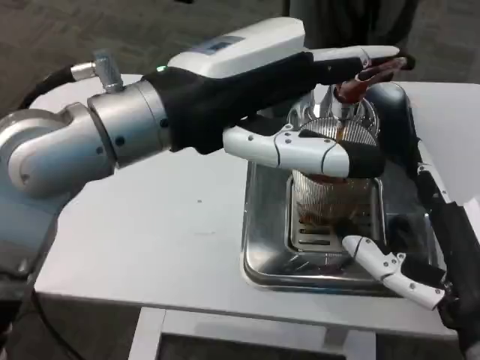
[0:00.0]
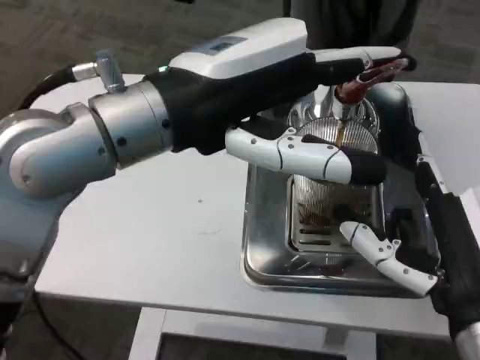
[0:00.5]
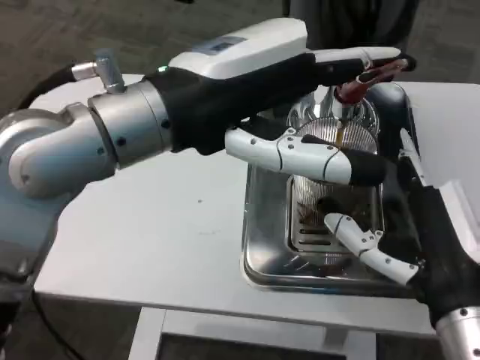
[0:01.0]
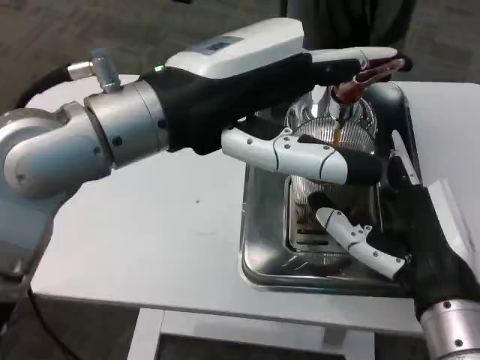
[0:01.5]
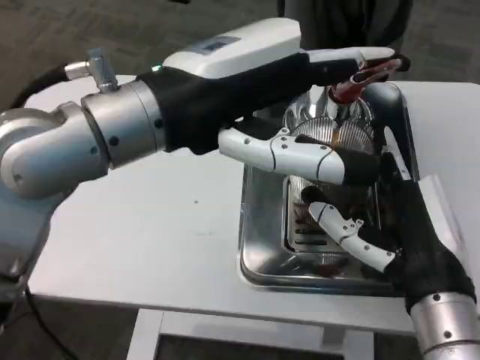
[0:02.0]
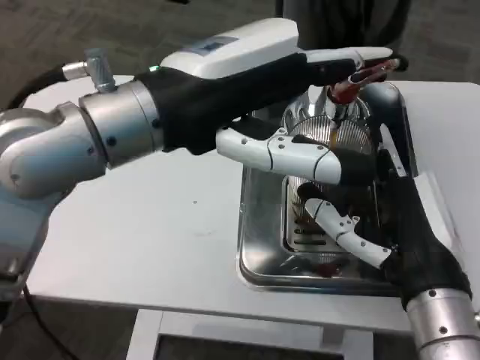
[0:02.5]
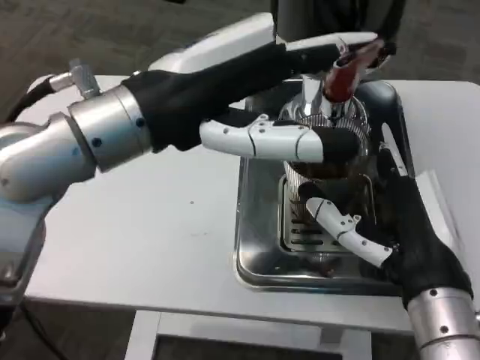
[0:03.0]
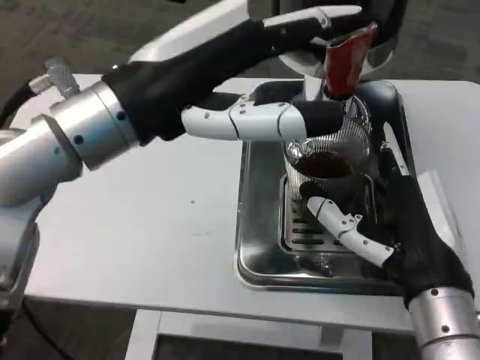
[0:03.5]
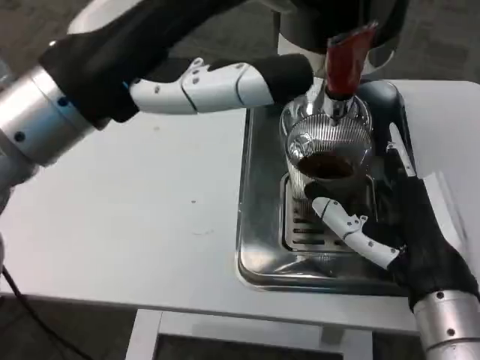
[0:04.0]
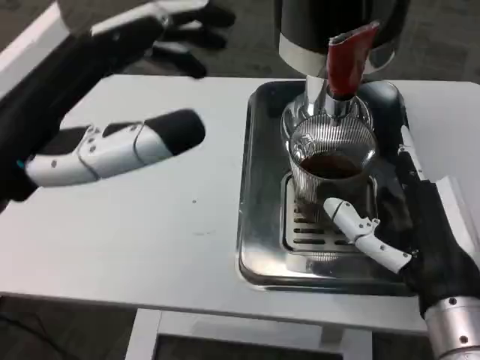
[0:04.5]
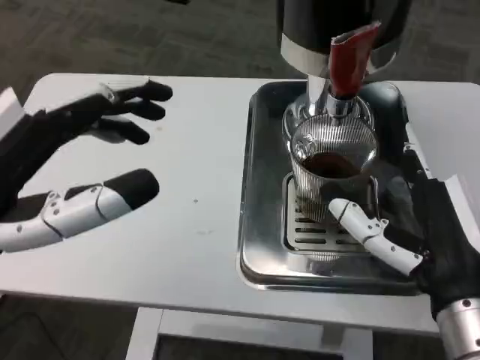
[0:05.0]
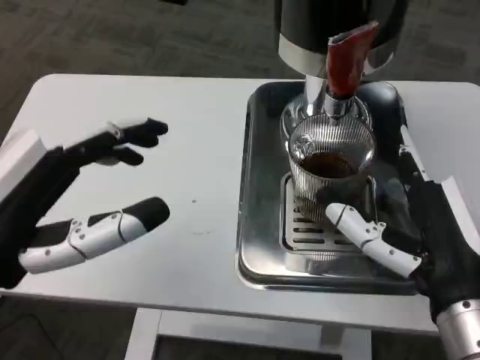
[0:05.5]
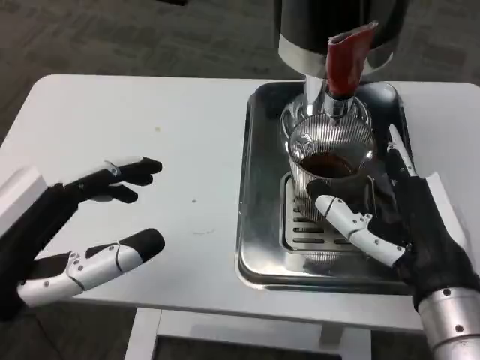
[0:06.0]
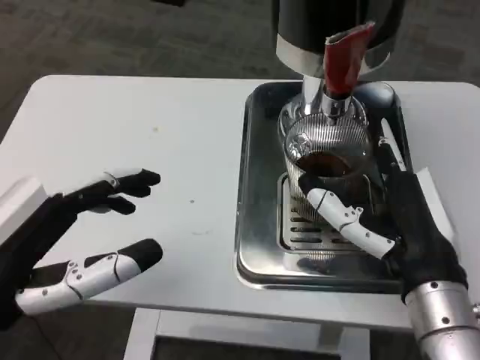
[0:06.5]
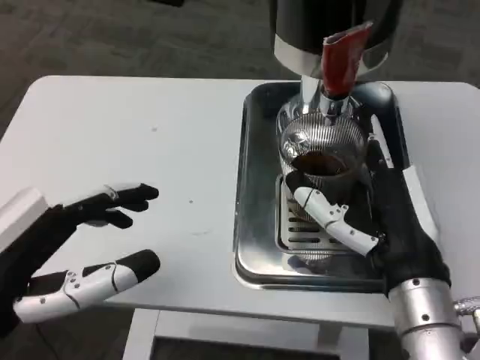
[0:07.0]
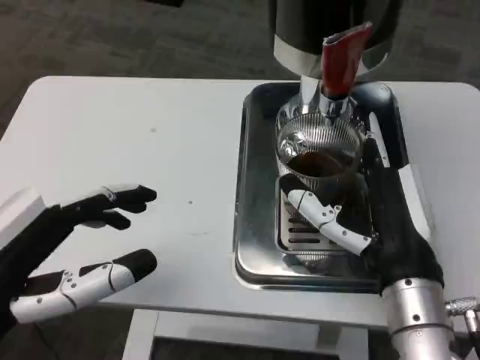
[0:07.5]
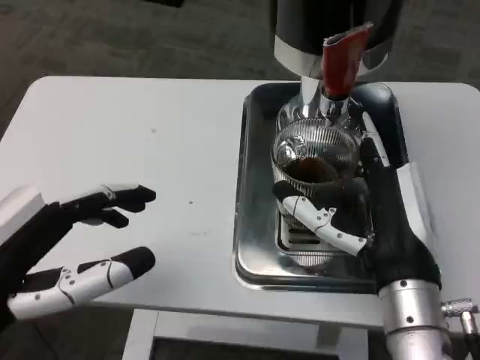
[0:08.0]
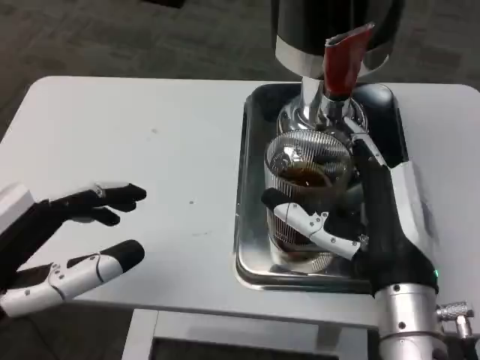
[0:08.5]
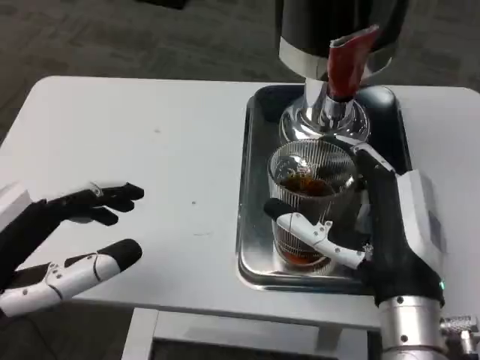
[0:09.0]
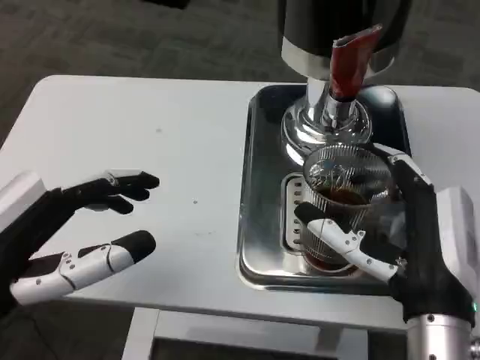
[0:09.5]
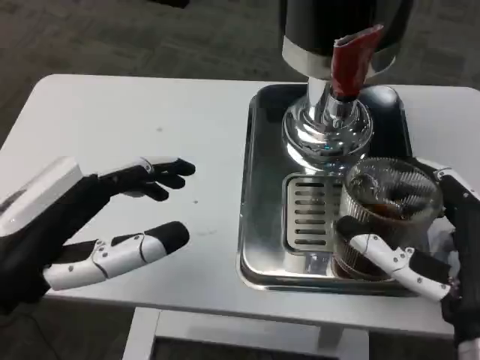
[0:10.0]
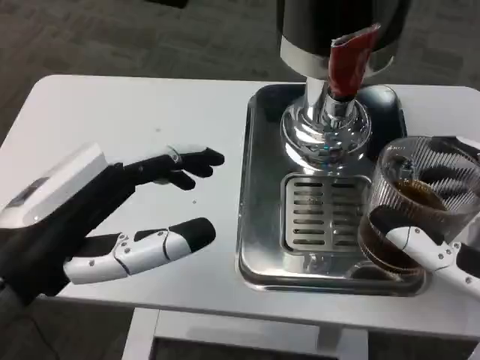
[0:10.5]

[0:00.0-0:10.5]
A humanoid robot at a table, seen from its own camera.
Task of the whole recording: Grasp the cup under the faucet to collect the drink, then remove the cup.
0:00.0 to 0:02.0: The right hand moves some 5 cm.
0:04.0 to 0:06.5: The left hand moves downward, backward and to the left, some 15 cm.
0:08.5 to 0:10.5: The right hand goes roughly 10 cm backward and to the right.

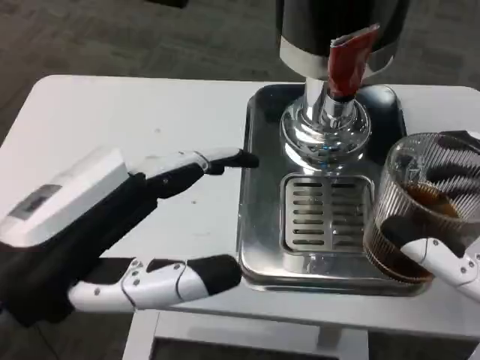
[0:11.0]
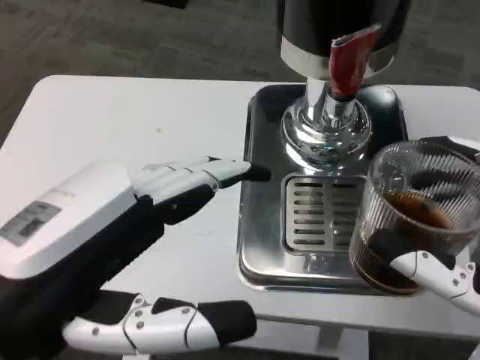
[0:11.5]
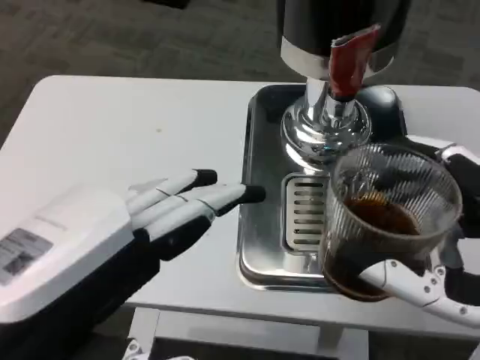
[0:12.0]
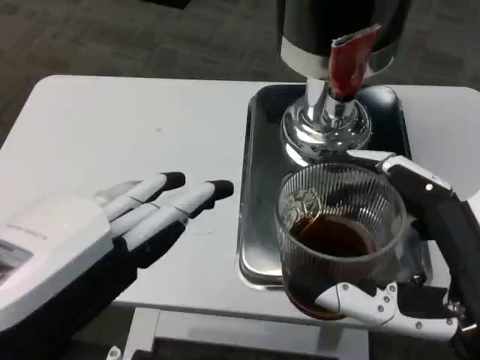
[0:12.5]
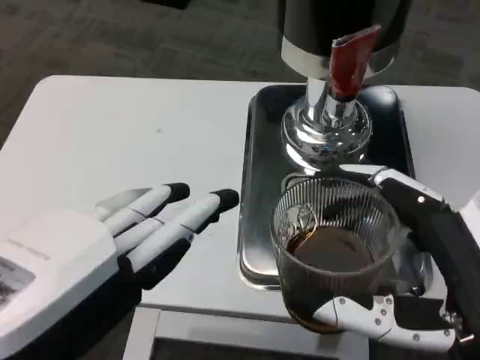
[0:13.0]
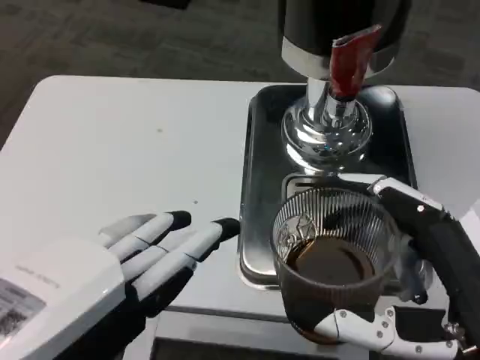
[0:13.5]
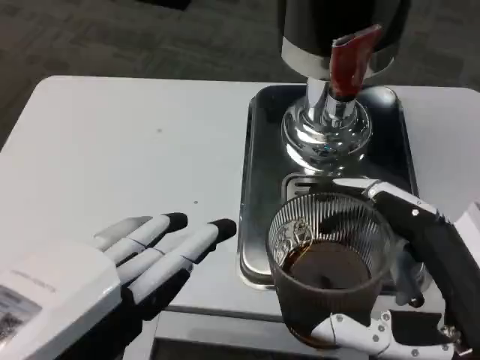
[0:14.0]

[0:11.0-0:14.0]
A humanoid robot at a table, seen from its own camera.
Task of the whole recording: Grasp the cup under the faucet to collect the drink, then remove the cup.
0:11.0 to 0:12.5: The left hand goes some 5 cm backward.

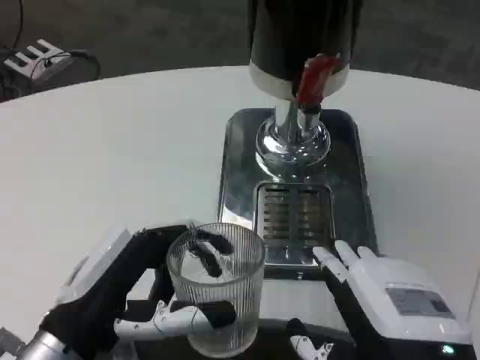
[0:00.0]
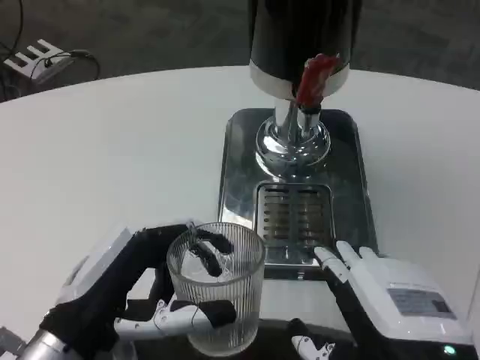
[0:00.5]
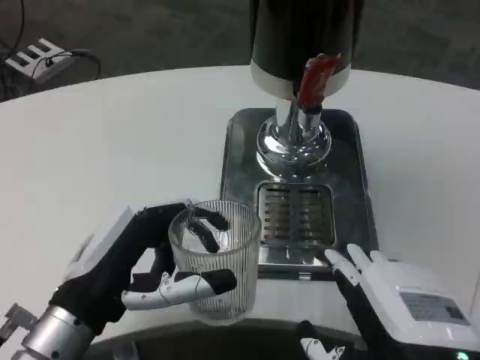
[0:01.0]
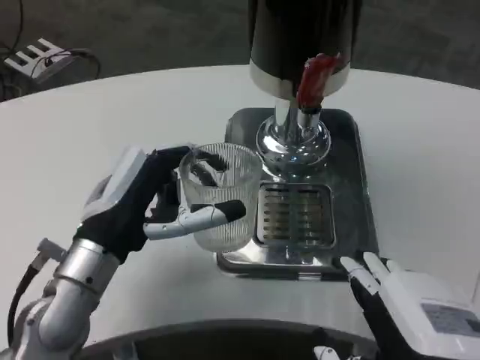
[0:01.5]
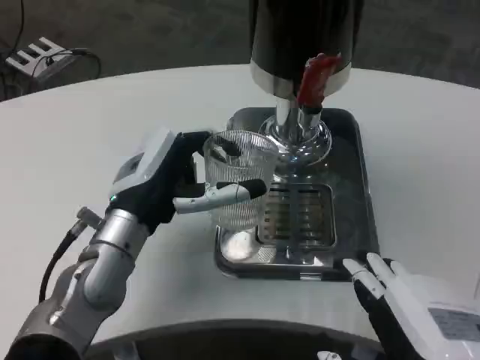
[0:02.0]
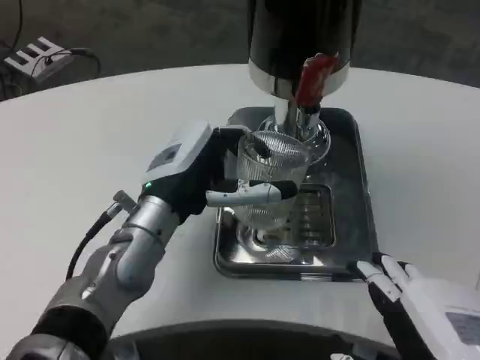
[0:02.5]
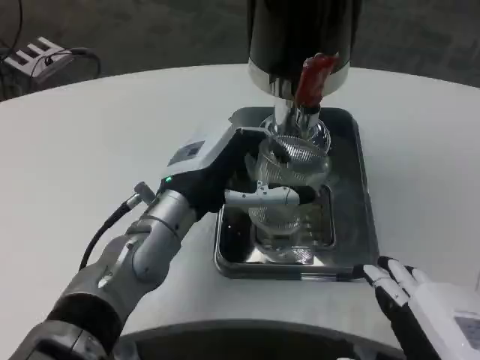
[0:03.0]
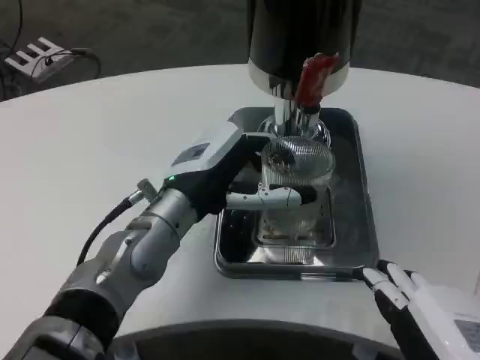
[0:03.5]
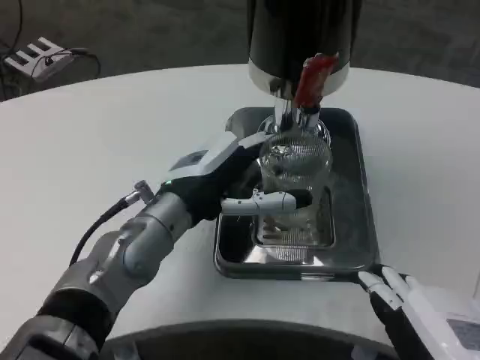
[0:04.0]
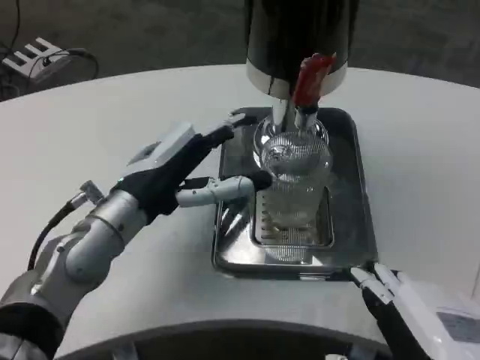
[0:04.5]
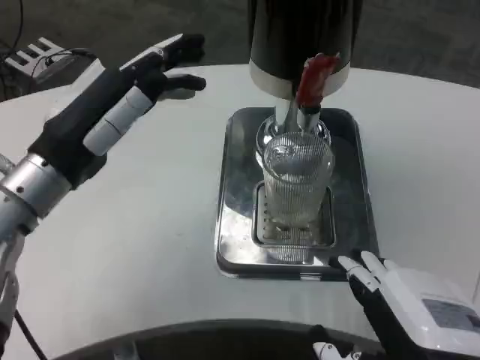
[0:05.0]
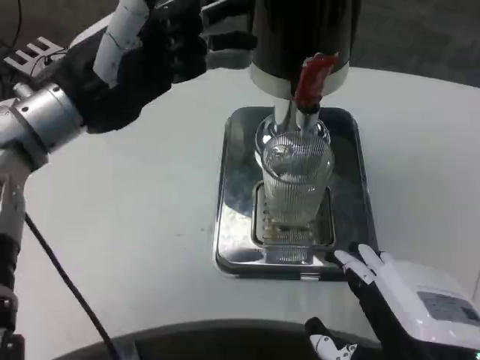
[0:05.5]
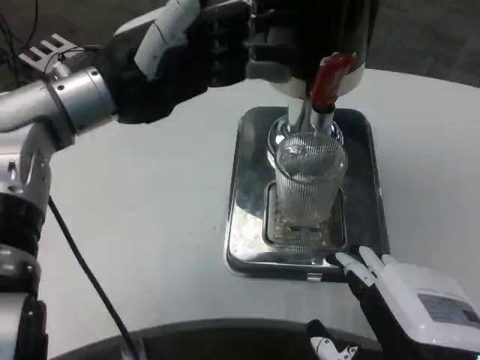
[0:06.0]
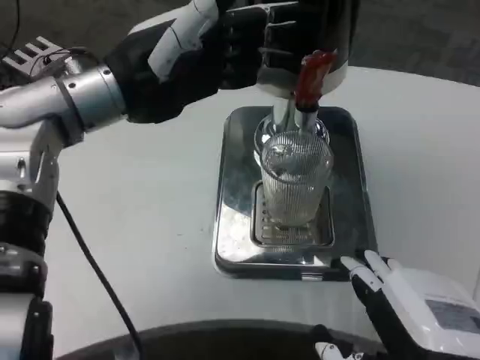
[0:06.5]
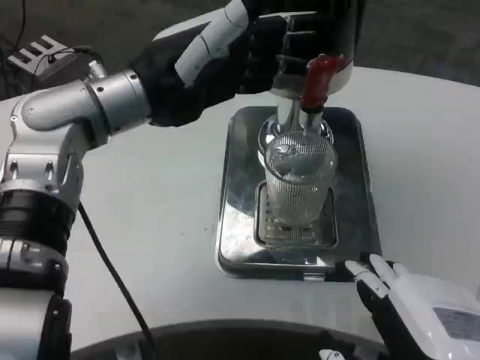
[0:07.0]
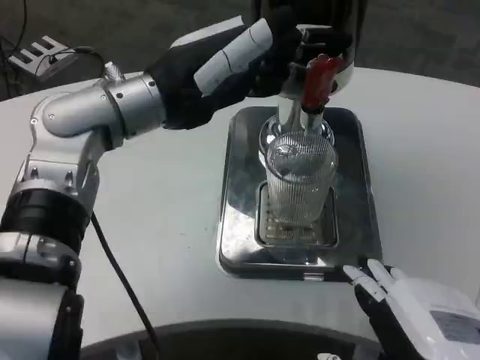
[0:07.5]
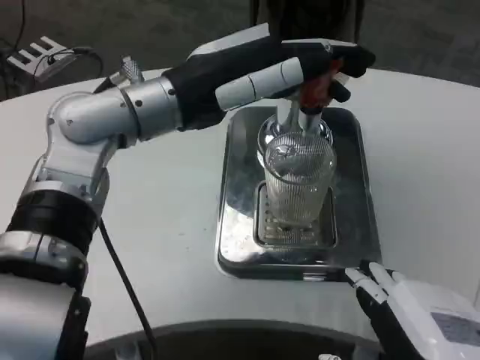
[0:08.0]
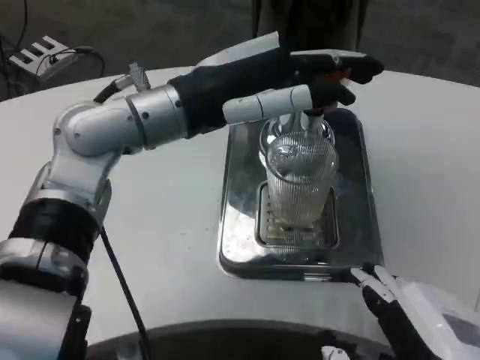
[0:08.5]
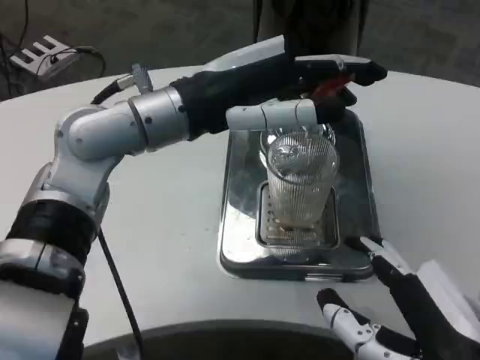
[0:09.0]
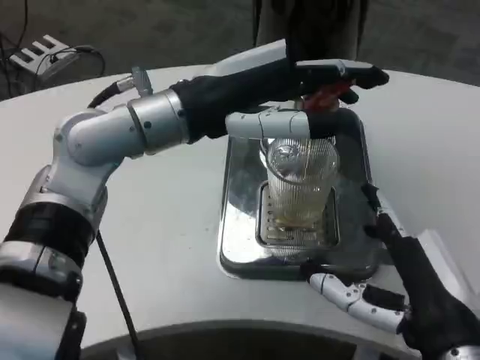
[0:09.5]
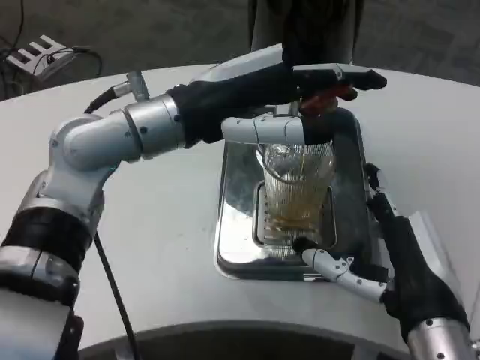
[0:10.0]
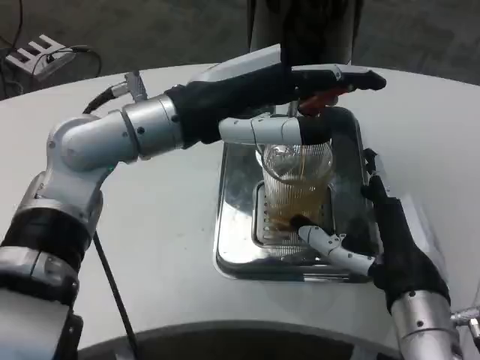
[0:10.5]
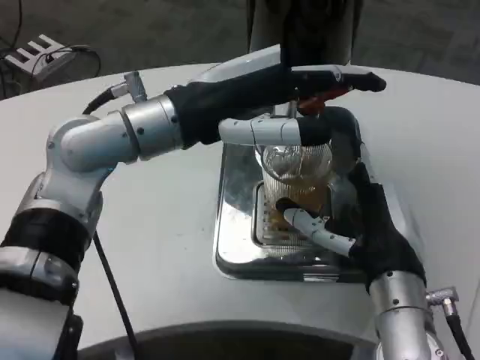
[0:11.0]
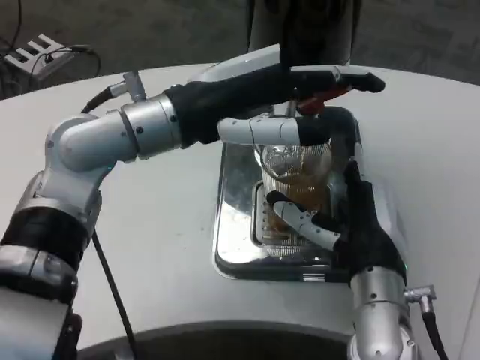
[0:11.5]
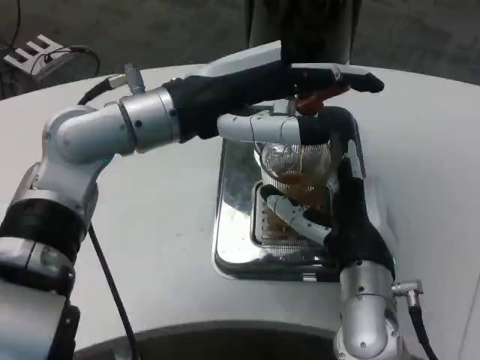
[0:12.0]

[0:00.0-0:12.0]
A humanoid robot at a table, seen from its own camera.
Task of the whole recording: Grasp the cup under the faucet to collect the drink, then remove the cup.
0:00.0 to 0:02.0: The left hand travels forward by approximately 10 cm.
0:04.0 to 0:06.0: The left hand travels upward and to the left by roughly 15 cm.
0:06.0 to 0:08.0: The left hand is displaced to the right by approximately 5 cm.
0:08.0 to 0:10.0: The right hand travels forward by approximately 10 cm.
0:10.0 to 0:12.0: The right hand heads forward and to the left, covering roughly 10 cm.
